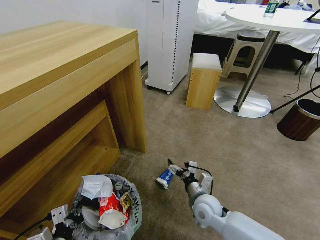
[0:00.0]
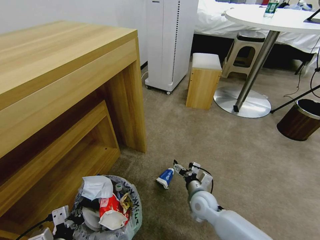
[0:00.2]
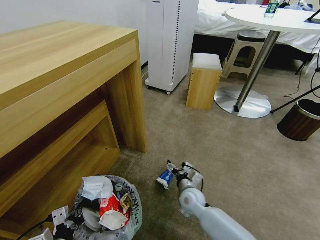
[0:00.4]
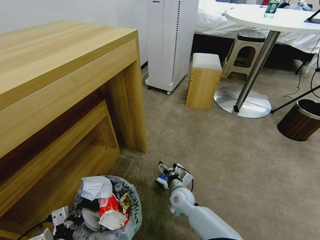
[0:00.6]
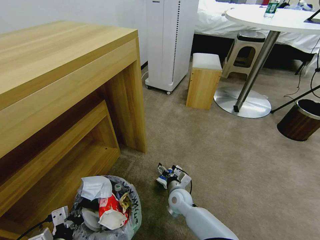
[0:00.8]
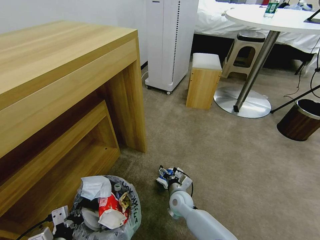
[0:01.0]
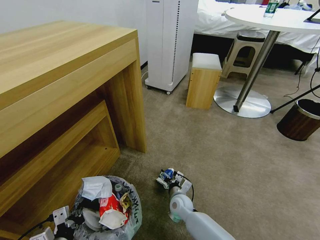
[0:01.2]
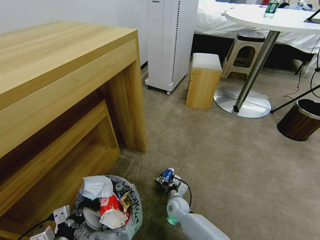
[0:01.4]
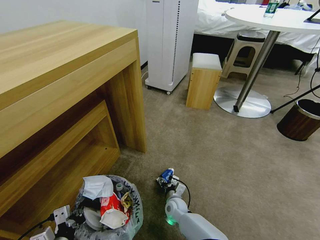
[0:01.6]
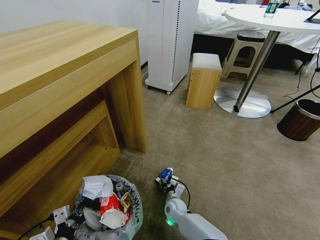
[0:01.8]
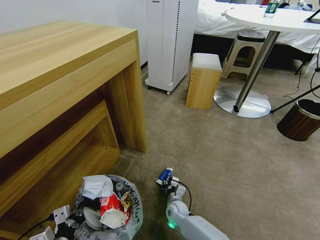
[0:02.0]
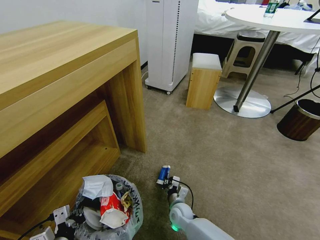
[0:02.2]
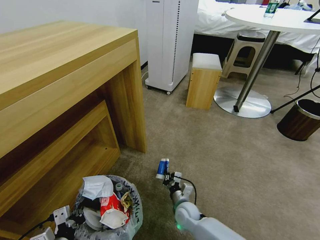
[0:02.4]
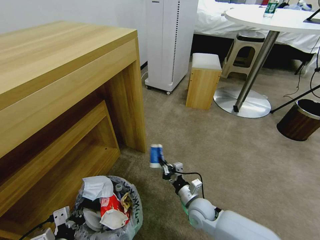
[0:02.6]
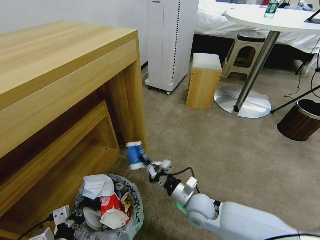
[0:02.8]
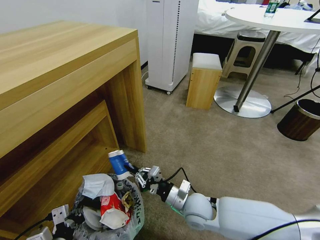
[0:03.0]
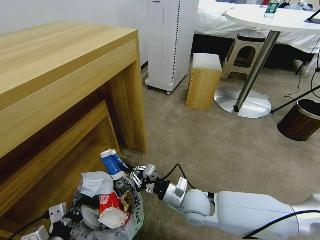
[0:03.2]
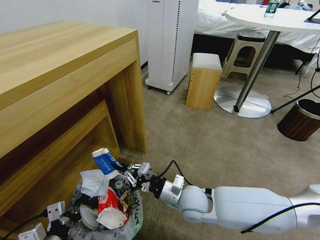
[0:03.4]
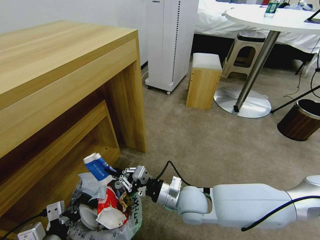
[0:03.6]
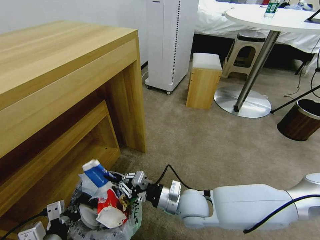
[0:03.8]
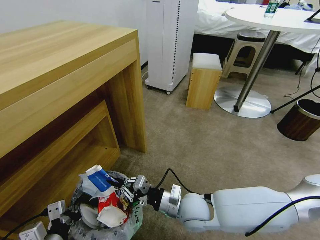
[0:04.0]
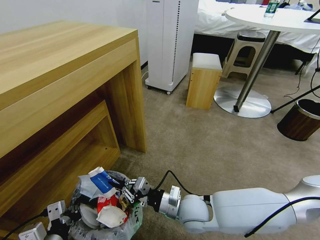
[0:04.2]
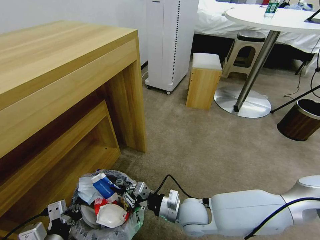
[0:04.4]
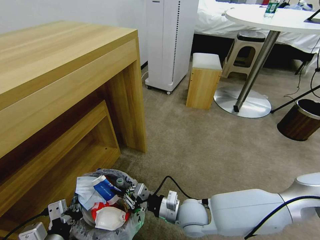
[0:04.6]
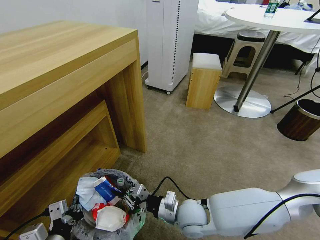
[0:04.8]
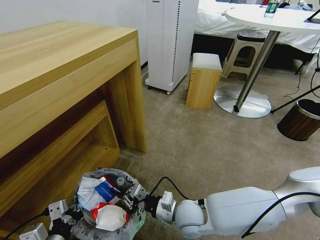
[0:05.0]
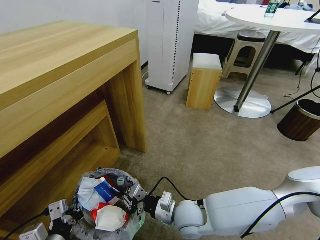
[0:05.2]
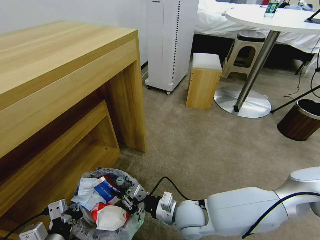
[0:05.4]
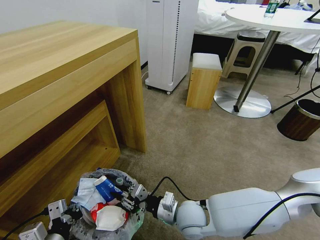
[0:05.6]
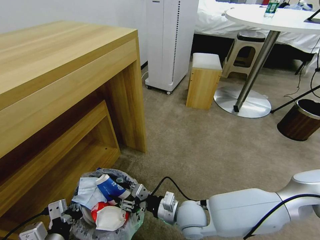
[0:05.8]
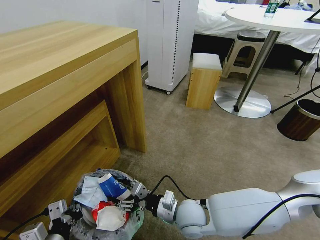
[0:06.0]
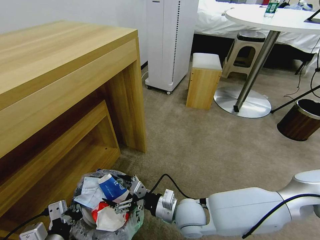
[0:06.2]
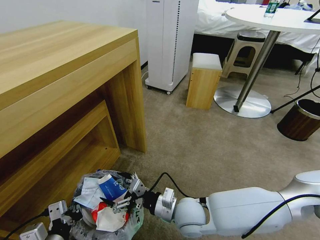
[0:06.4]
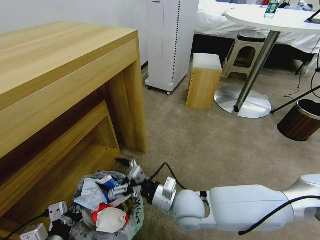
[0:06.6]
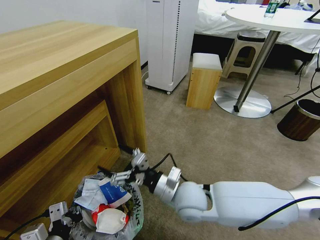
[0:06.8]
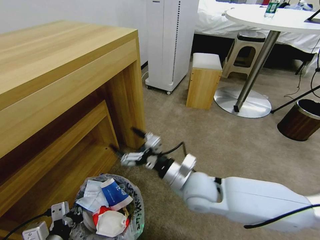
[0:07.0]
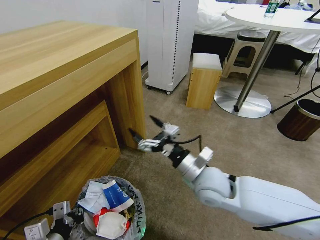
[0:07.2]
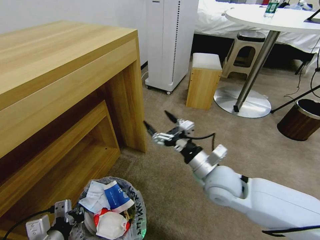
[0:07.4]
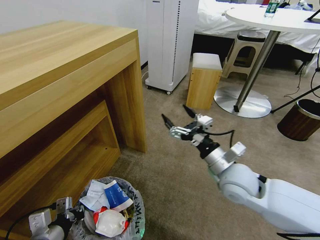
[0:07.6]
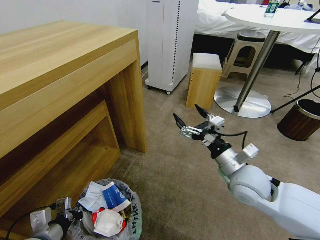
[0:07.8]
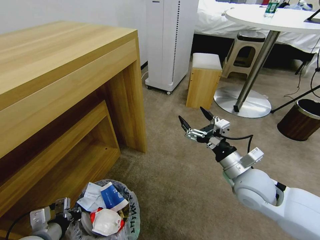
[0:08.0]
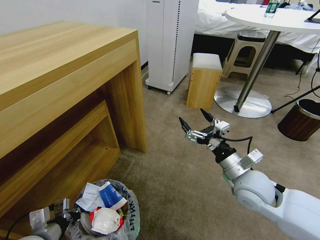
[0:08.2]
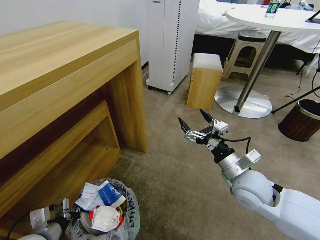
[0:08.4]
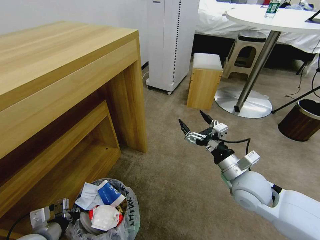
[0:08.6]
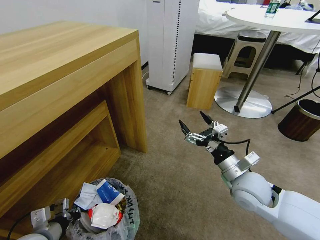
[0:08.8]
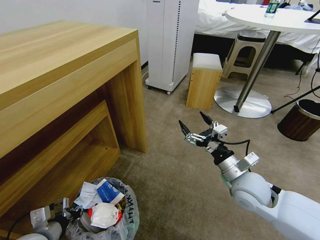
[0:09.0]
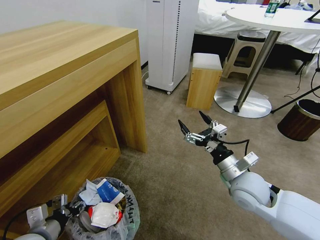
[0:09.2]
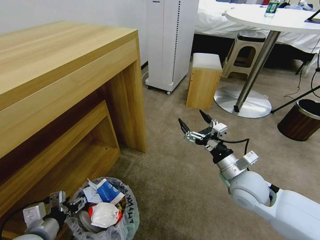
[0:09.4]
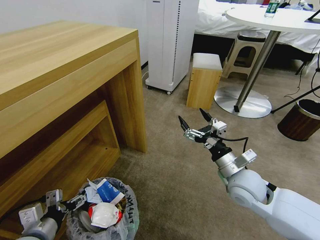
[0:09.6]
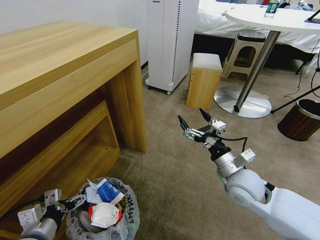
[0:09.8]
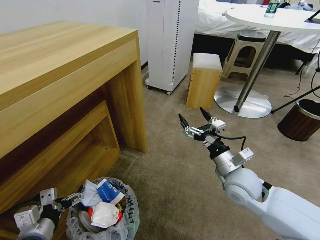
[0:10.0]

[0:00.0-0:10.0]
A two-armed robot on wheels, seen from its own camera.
Task of the whole recording: Pick up the trash bin and place the garbage on the floor into it.
0:00.0 to 0:01.4: The right gripper goes about 15 cm downward and to the left.
0:01.4 to 0:02.8: The right gripper shifts some 15 cm upward, and closes its fingers.
0:02.8 to 0:04.2: The right gripper moves approximately 5 cm.
0:04.2 to 0:05.8: The right gripper opens up.
0:05.8 to 0:07.2: The right gripper goes about 15 cm upward, forward and to the right, and opens up.
0:07.2 to 0:08.6: The right gripper is displaced to the right by roughly 10 cm. The left gripper shifts by approximately 10 cm.
0:08.6 to 0:10.0: The left gripper opens.

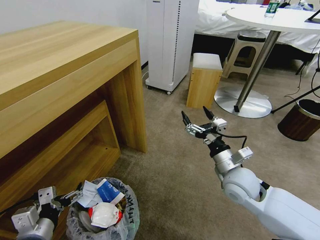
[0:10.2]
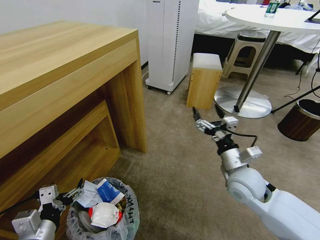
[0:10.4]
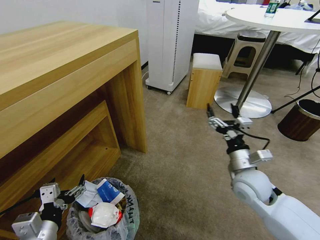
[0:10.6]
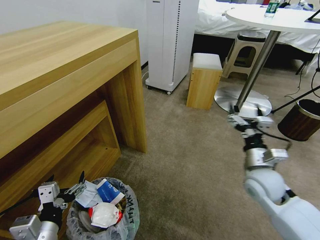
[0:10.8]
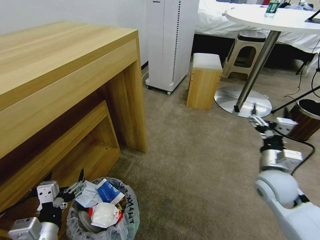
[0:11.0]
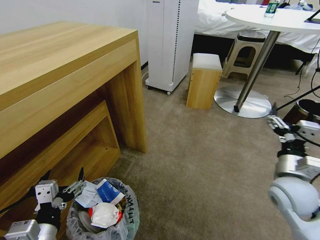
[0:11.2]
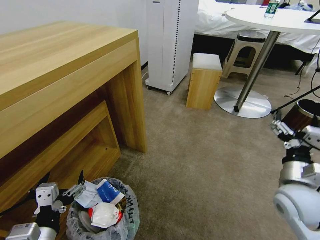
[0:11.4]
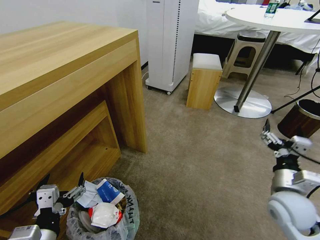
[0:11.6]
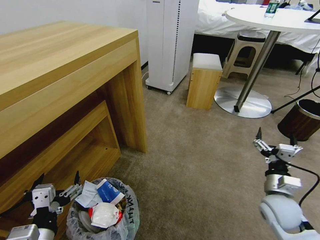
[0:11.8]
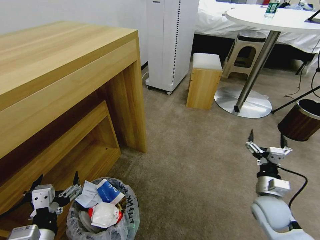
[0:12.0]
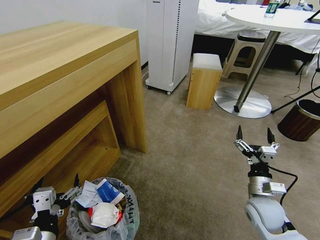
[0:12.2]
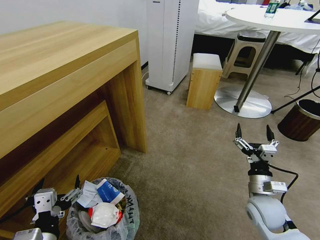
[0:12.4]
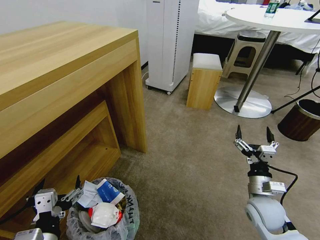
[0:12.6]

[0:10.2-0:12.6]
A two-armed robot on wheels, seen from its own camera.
Task of the whole recording: Pick up the trash bin and place the garbage on the floor into it.
0:10.2 to 0:11.4: The left gripper is displaced to the right by about 5 cm. Meanwhile the right gripper shifts roughly 15 cm to the right and backward.
0:11.4 to 0:12.6: The right gripper is displaced downward by roughly 10 cm.
